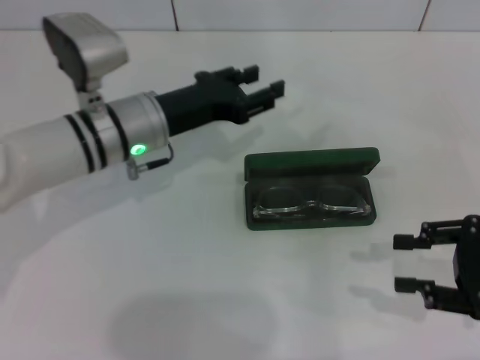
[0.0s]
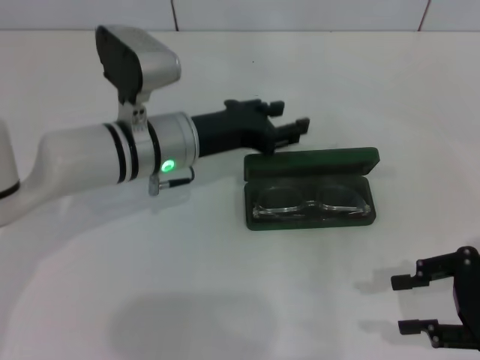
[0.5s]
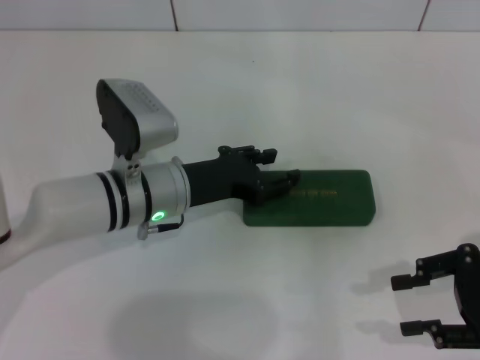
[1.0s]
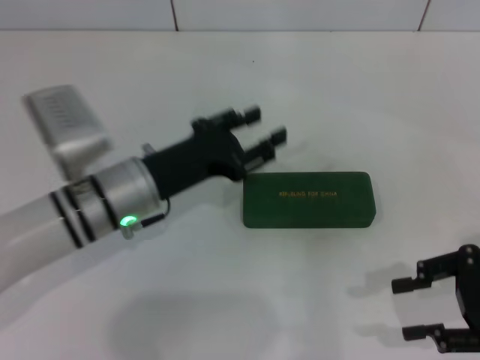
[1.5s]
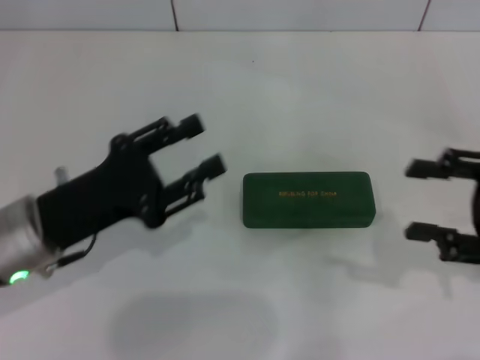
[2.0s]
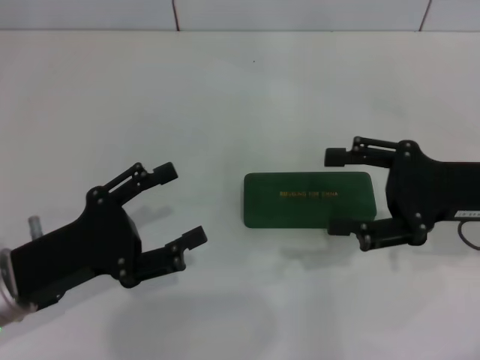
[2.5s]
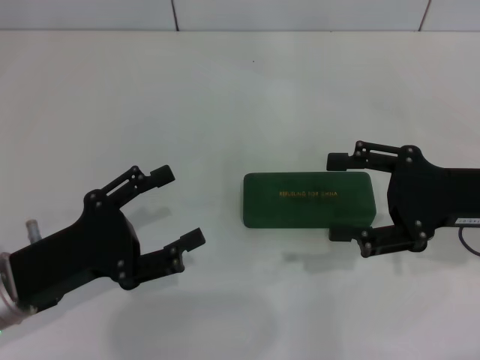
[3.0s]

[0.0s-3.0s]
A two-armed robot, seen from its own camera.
0.0s to 1.5s: The left gripper shifts about 5 cm backward.
1.5s to 3.0s: The right gripper is displaced to the left and forward by some 5 cm, and opens its fingers; the left gripper moves to the left and backward, about 15 cm, and opens up.
